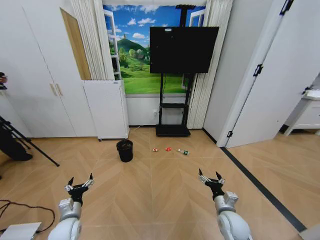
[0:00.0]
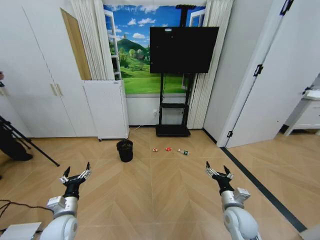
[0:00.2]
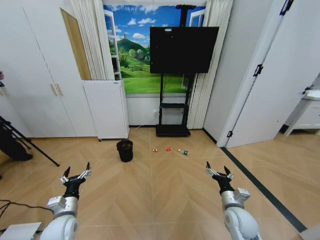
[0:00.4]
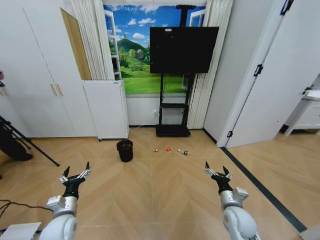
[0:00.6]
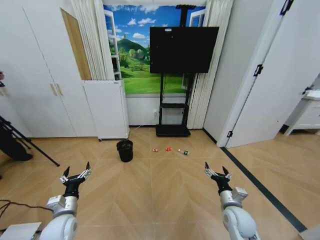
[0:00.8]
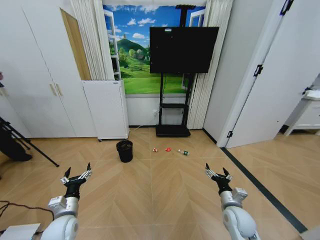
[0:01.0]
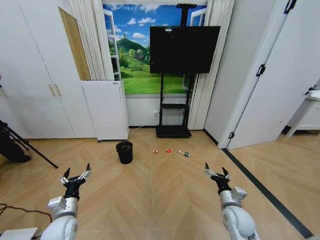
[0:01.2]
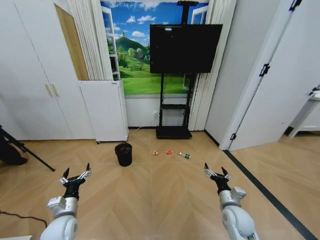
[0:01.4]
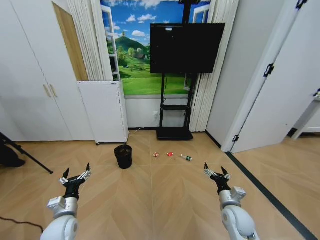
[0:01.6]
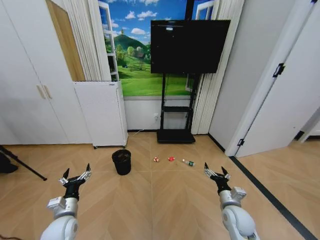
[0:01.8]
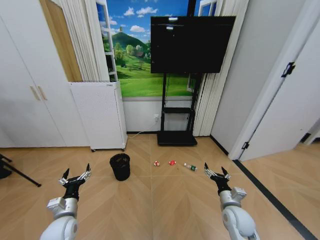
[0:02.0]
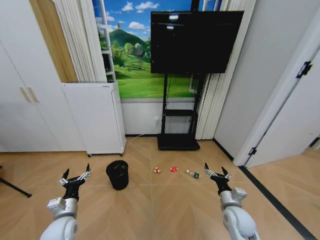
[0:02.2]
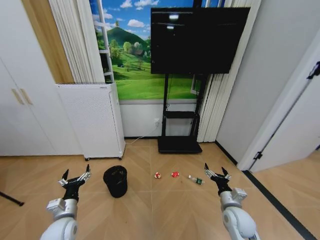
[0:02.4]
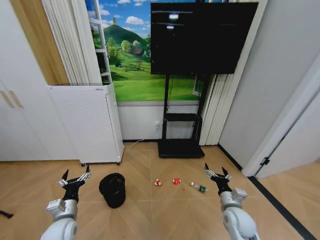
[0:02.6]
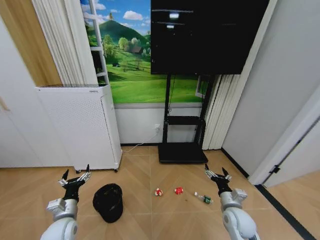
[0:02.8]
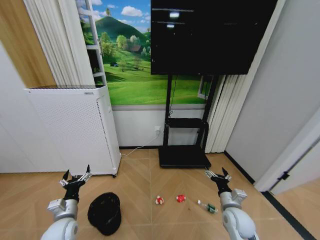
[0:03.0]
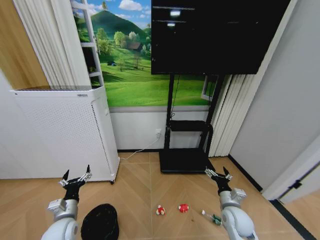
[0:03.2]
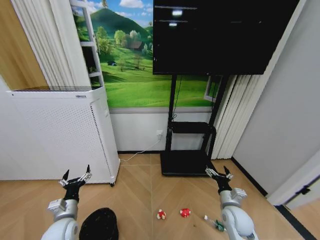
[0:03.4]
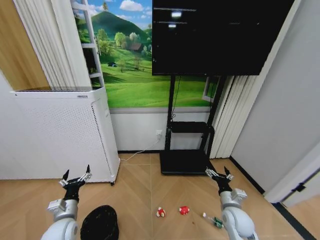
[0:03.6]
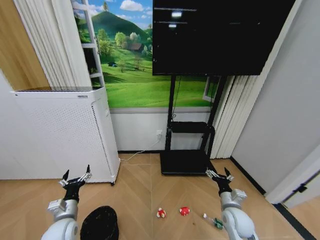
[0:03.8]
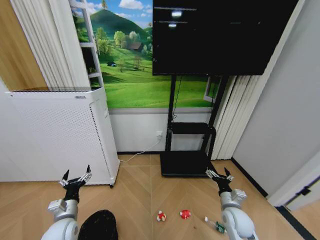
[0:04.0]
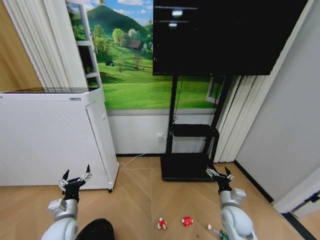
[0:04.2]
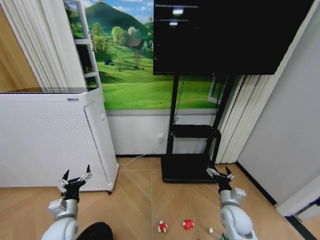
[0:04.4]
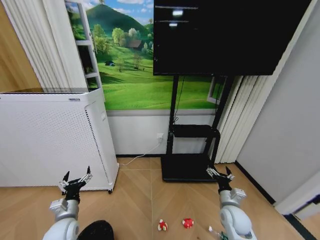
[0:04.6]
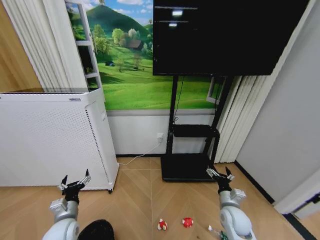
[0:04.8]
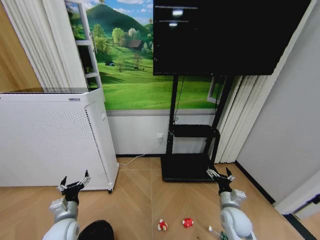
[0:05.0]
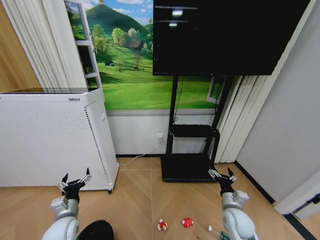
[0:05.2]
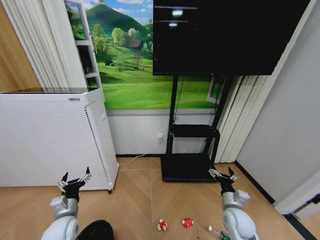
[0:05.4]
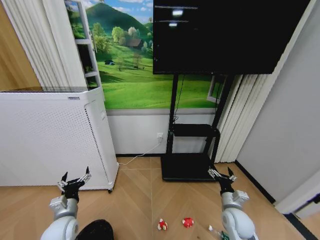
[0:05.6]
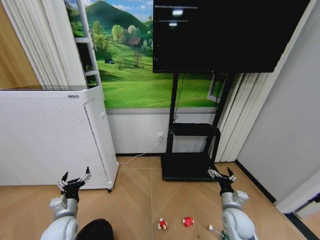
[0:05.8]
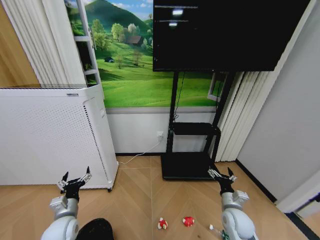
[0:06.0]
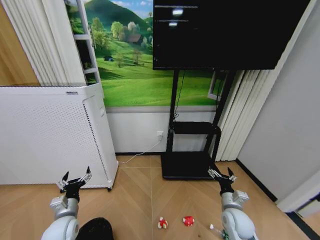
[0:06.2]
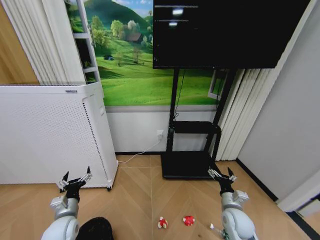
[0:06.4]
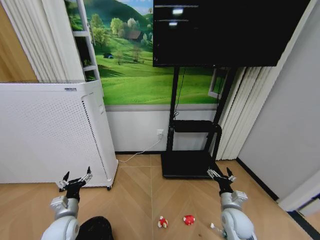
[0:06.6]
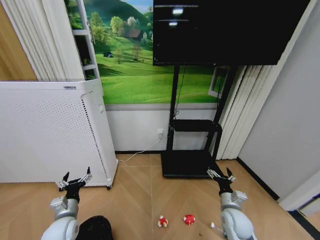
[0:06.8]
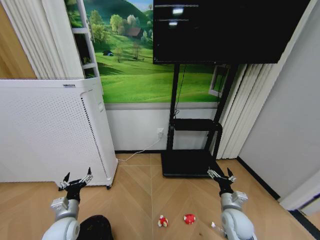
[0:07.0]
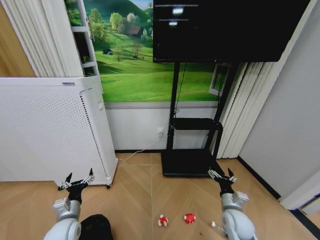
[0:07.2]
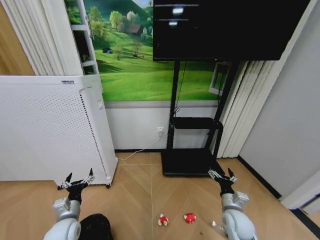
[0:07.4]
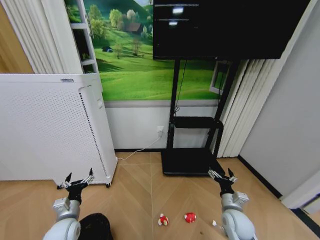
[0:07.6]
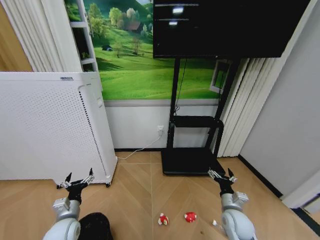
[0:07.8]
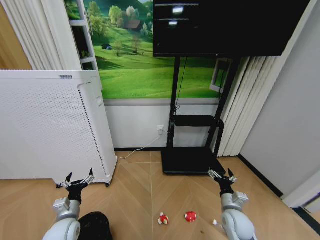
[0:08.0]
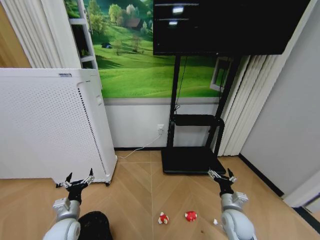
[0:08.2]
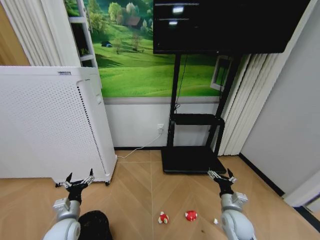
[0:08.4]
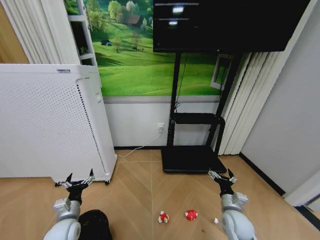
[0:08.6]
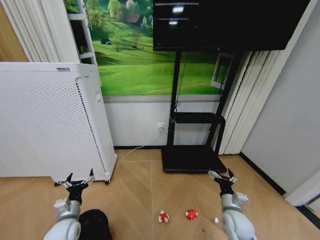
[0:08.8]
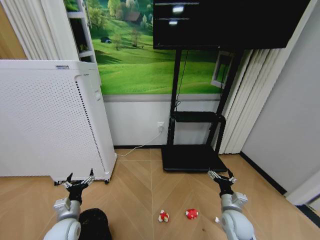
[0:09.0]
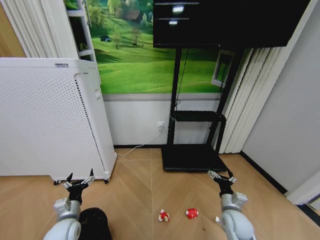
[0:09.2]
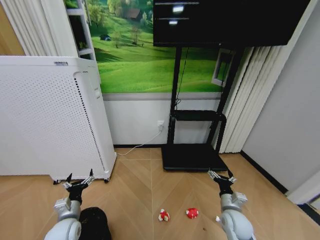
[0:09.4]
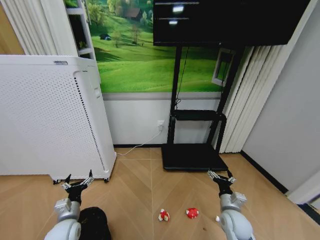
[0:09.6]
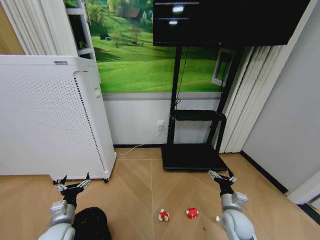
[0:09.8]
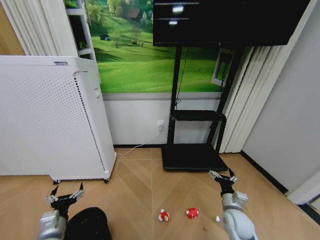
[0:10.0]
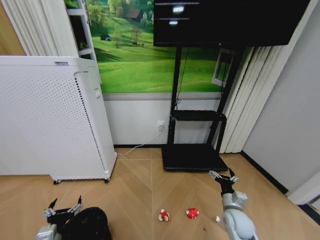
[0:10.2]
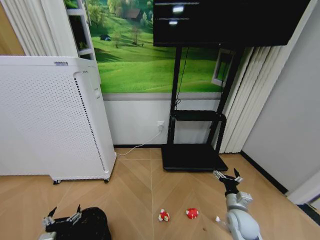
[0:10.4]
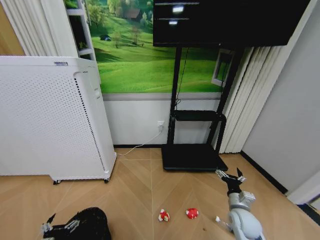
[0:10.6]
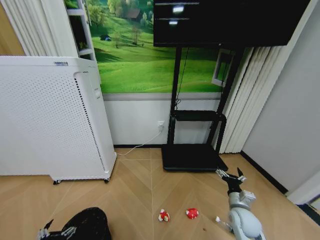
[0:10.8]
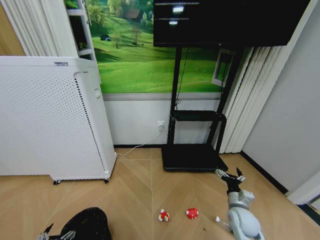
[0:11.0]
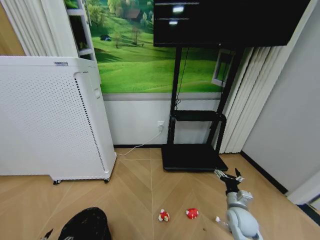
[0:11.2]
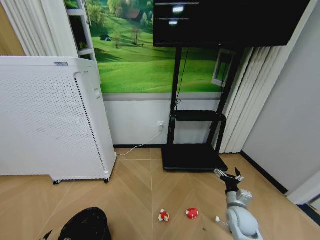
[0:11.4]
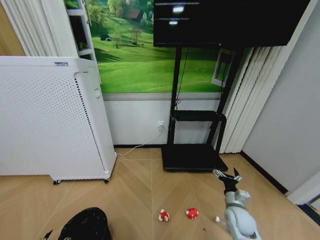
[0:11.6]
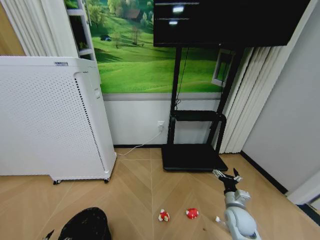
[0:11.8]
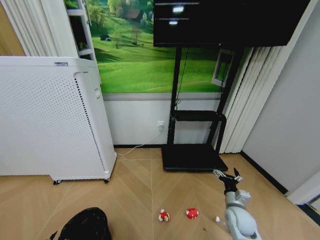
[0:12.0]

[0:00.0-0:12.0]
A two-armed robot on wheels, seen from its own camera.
Task of the whole recording: Pick up the trash bin and place the garbage on the floor into it.
0:04.4 to 0:06.0: The grippers make only small movements.
0:06.0 to 0:09.0: The two grippers keep their place.
0:09.0 to 0:10.4: The left gripper travels backward by about 10 cm.
0:10.4 to 0:12.0: The left gripper moves downward and to the left, approximately 10 cm.

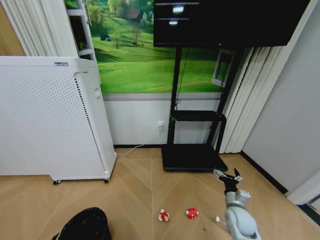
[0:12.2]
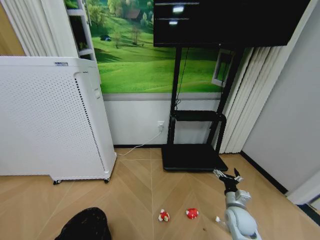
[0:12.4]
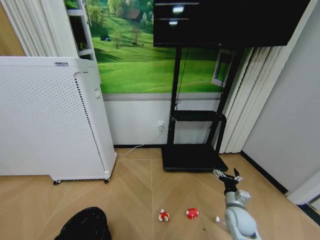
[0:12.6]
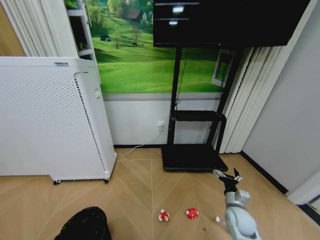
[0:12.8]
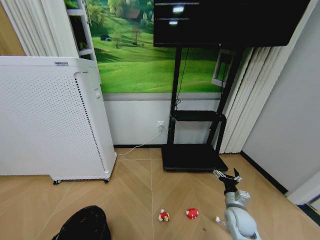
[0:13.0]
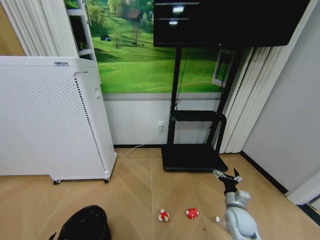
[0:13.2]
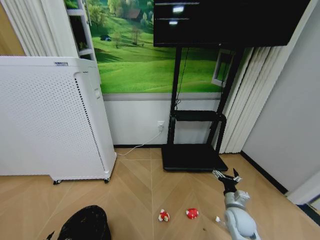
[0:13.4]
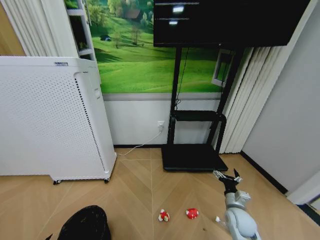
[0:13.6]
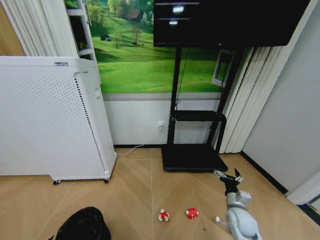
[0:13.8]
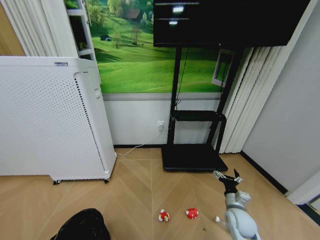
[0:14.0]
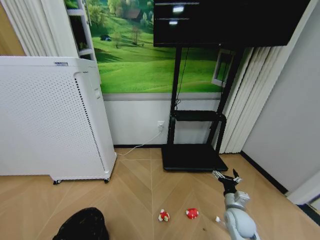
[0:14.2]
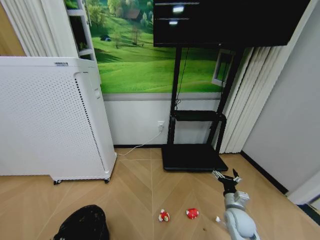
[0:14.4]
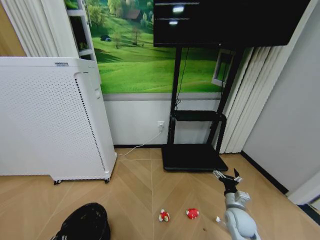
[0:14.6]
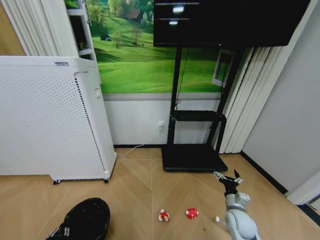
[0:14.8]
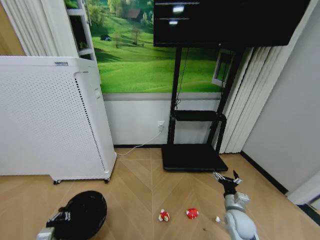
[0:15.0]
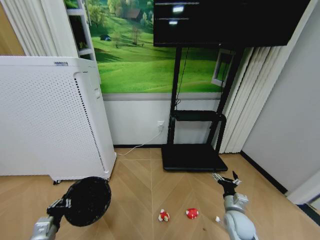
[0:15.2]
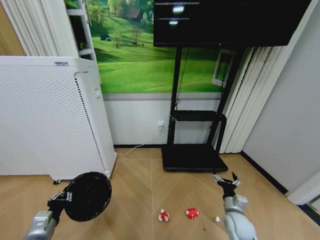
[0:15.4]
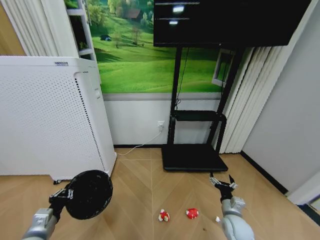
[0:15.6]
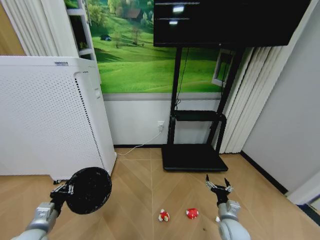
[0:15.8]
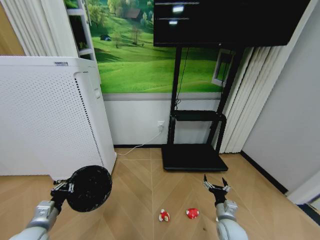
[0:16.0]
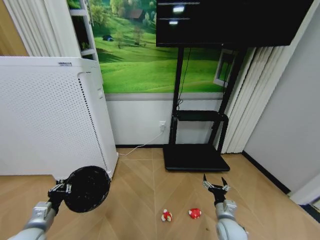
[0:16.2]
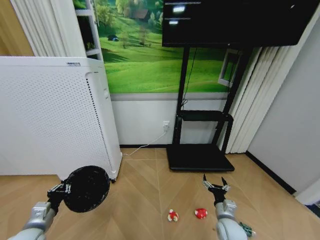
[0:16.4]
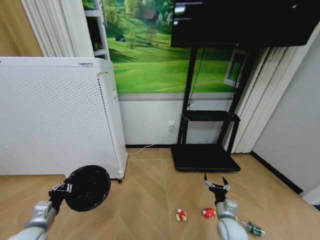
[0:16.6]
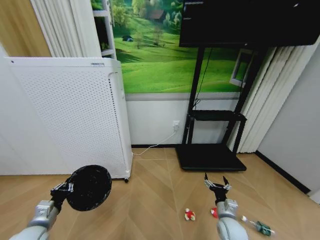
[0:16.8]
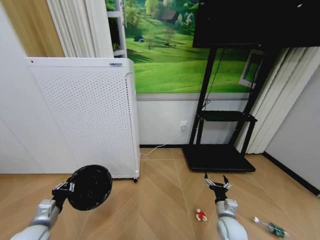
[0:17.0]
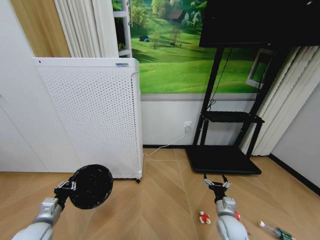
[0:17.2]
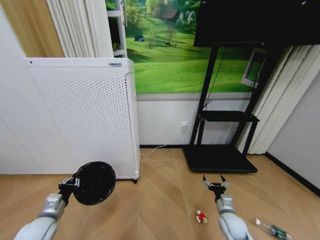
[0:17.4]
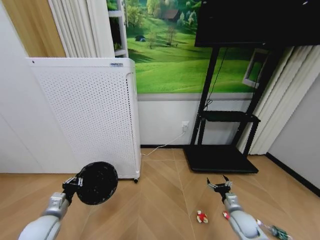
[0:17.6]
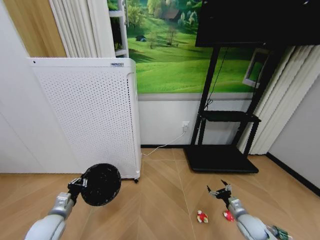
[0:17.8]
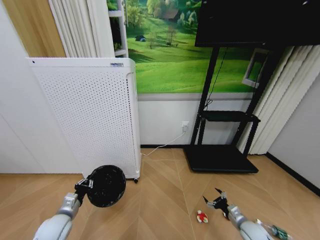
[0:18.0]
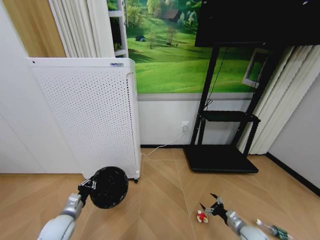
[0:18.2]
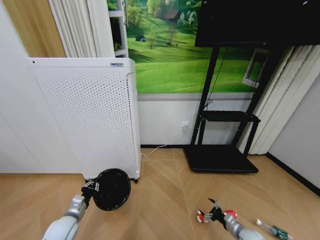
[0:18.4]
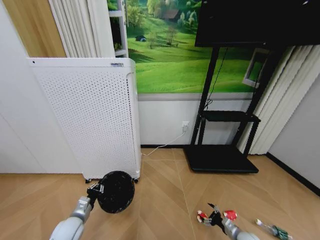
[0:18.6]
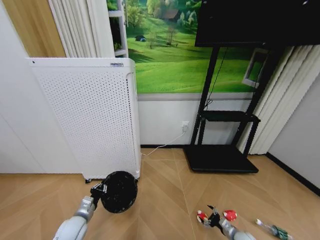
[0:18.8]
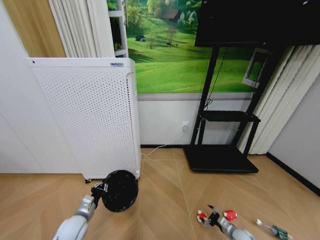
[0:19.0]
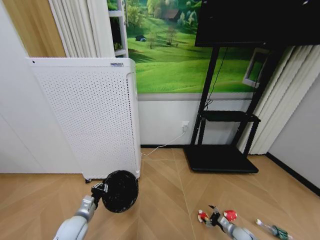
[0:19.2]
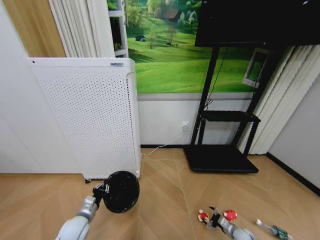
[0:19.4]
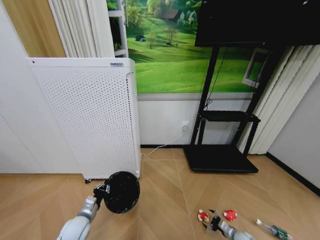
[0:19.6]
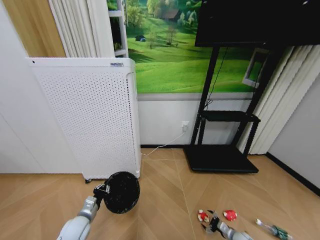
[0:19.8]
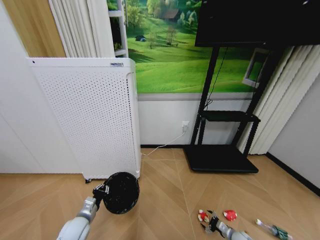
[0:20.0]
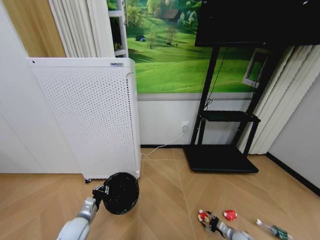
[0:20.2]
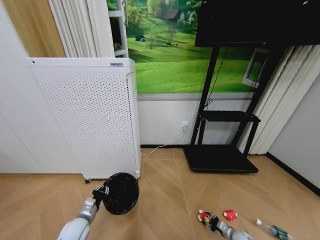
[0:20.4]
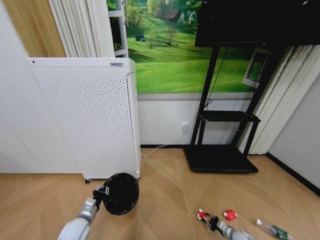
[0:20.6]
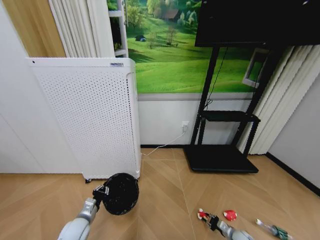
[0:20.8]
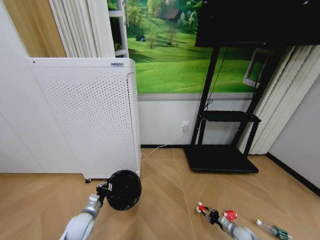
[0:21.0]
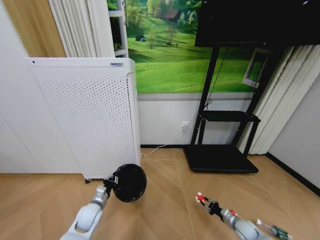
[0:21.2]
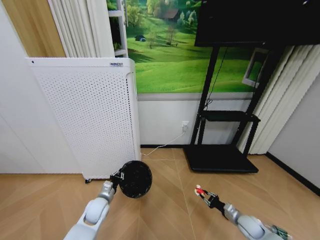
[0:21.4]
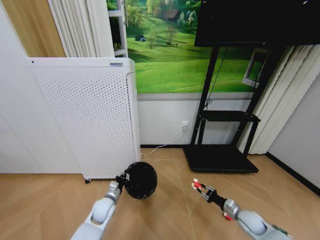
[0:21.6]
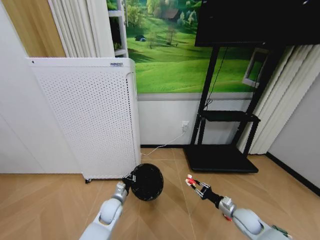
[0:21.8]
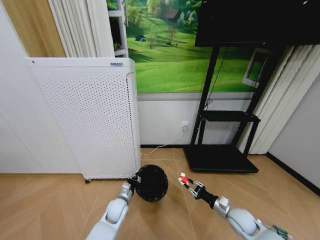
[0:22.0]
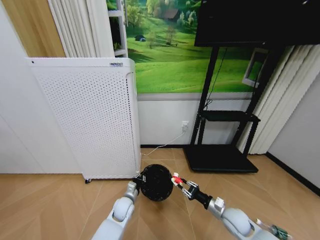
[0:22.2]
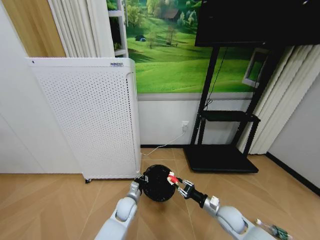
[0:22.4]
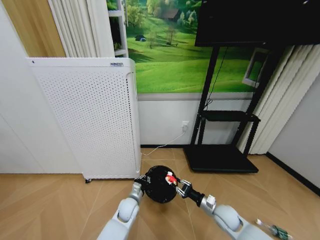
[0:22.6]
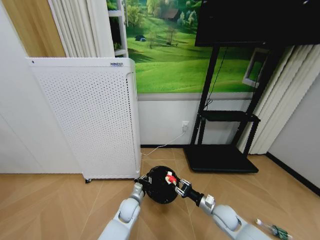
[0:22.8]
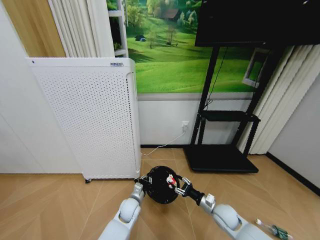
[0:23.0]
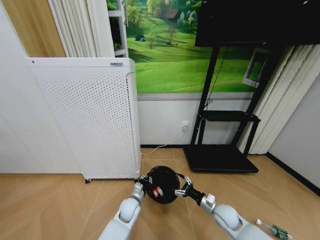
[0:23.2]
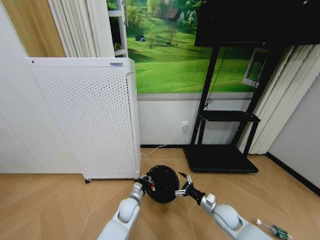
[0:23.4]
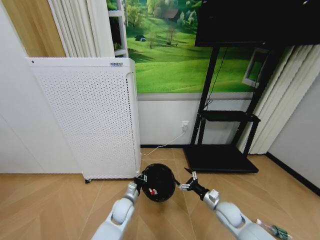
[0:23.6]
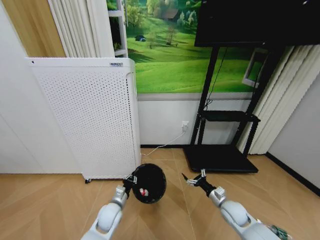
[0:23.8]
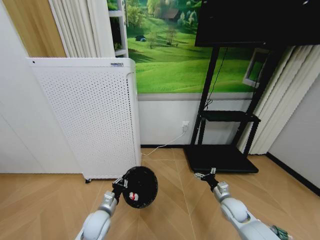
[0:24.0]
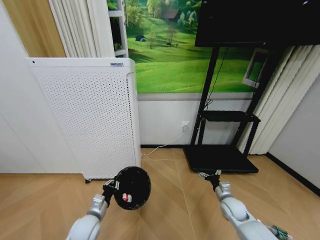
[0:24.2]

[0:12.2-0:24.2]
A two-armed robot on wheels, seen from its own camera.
Task of the whole recording: Pick up the trash bin and place the garbage on the floor into it.
0:13.8 to 0:15.2: The left gripper moves upward and forward, some 10 cm, and closes its fingers.
0:15.2 to 0:16.6: The left gripper moves about 5 cm.
0:16.6 to 0:18.2: The right gripper shifts approximately 15 cm to the right and downward. Meanwhile the left gripper moves approximately 10 cm.
0:18.2 to 0:19.8: The left gripper moves roughly 5 cm; the right gripper travels downward by some 10 cm.
0:19.8 to 0:21.2: The right gripper goes approximately 5 cm upward, and closes its fingers.
0:21.2 to 0:22.6: The right gripper travels to the left and upward by approximately 20 cm. Meanwhile the left gripper moves to the right, some 15 cm.
0:22.6 to 0:24.2: The right gripper travels to the right by roughly 5 cm, and opens its fingers. Meanwhile the left gripper travels to the left, backward and upward by some 15 cm.
